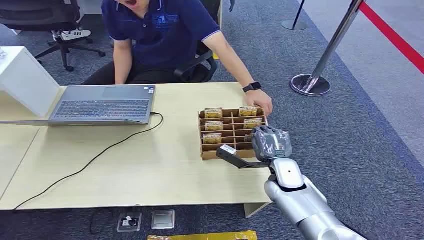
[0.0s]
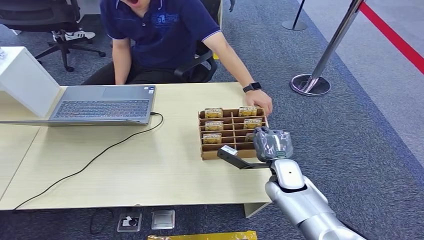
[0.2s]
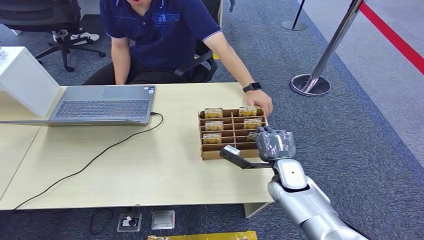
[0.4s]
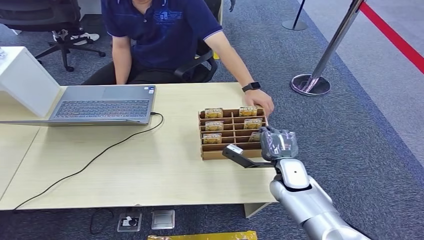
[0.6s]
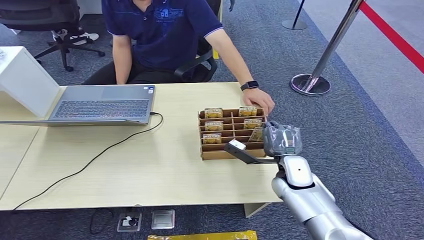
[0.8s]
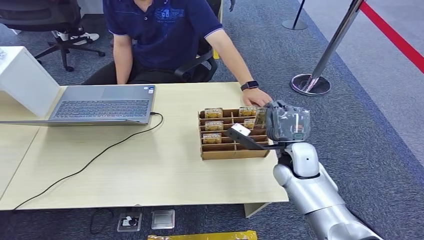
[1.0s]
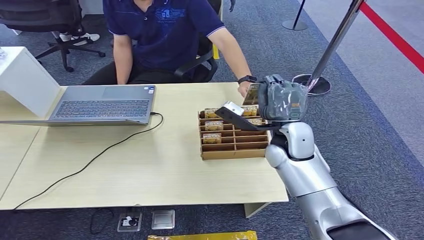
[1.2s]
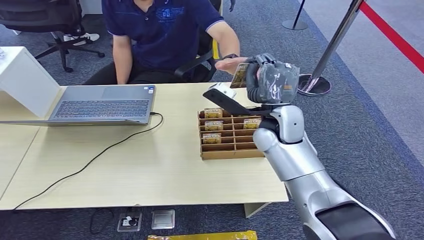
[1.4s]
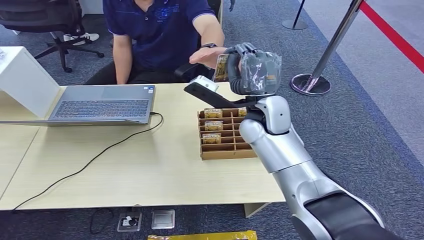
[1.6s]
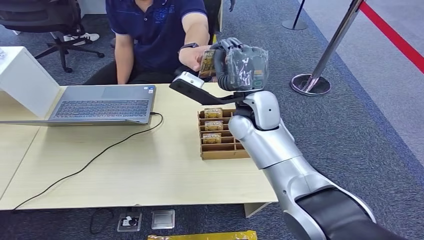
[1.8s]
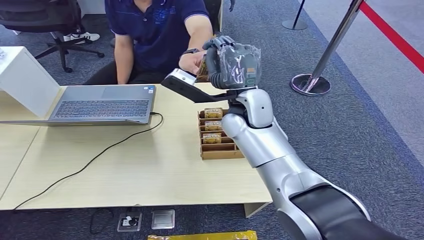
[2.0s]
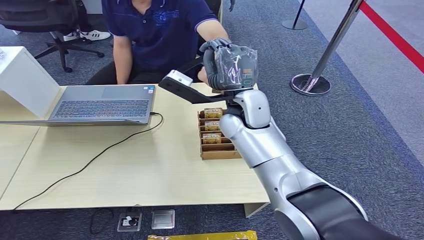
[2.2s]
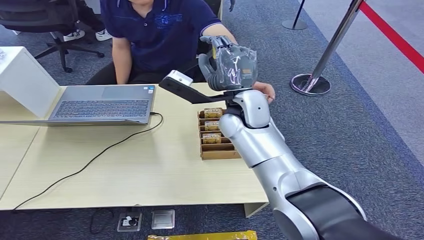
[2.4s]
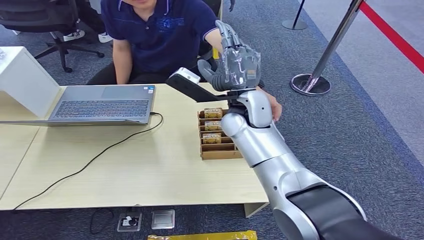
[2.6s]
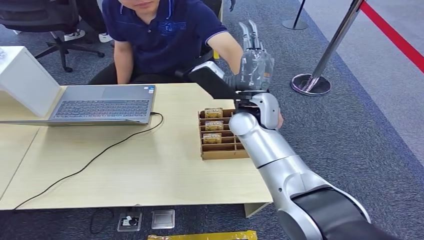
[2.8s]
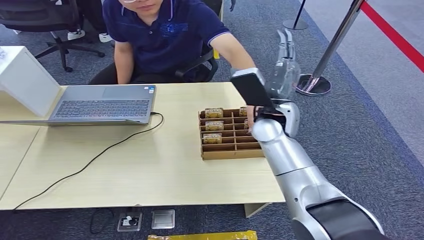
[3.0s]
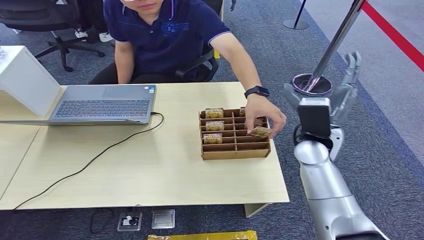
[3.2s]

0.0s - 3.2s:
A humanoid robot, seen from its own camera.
Step, 0.0s - 1.2s: Pick up the key card from the card box.
Step, 1.4s - 3.2s: Hand the key card to the target.
